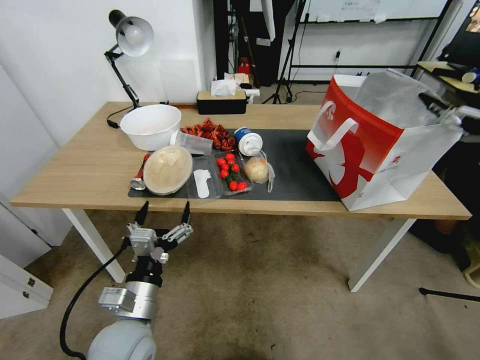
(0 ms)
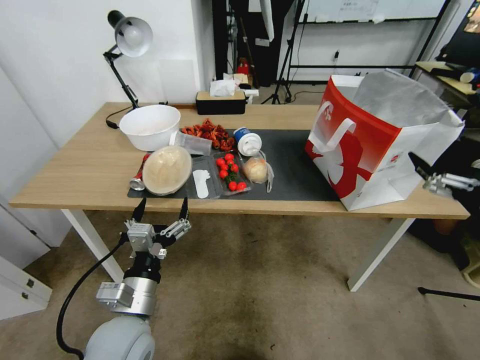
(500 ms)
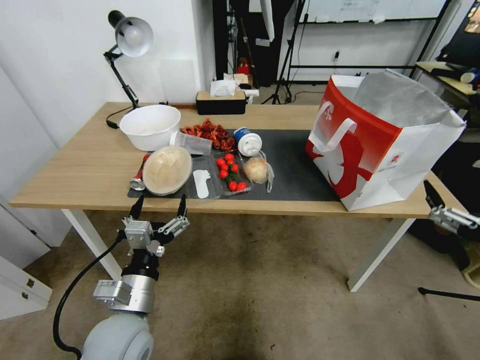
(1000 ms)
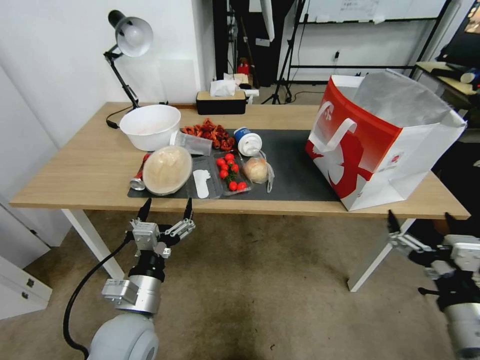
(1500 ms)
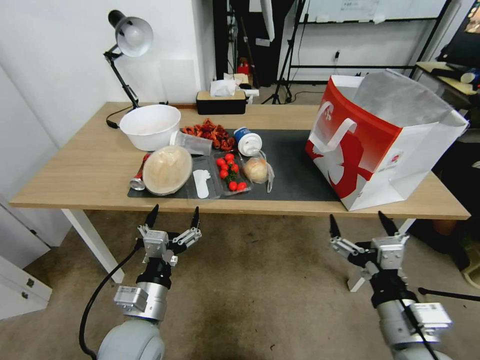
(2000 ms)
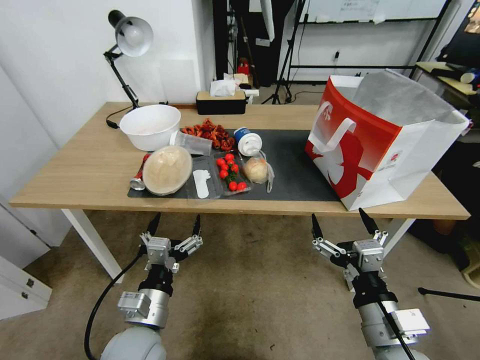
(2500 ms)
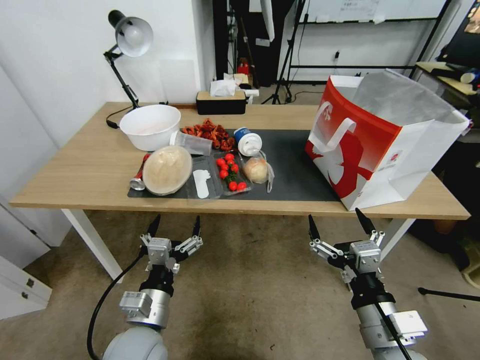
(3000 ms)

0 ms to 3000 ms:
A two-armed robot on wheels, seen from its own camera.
Task of the whole recording: Pick up the food delivery bag from the floor and place it on the table.
0 ms to 1500 ms: The right gripper heads downward, backward and to the left, covering approximately 30 cm.
1500 ms to 3000 ms: The right gripper is displaced to the left by about 10 cm.
